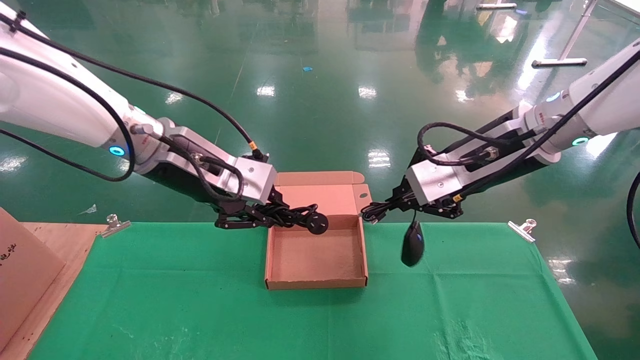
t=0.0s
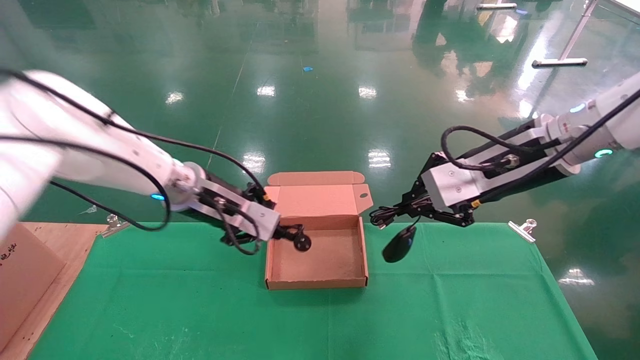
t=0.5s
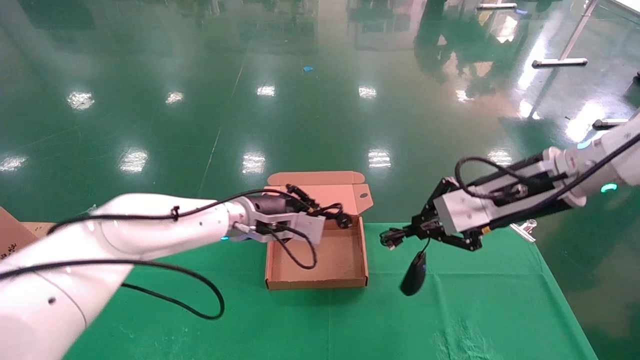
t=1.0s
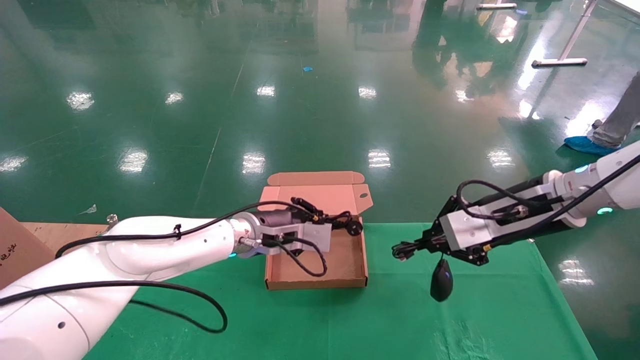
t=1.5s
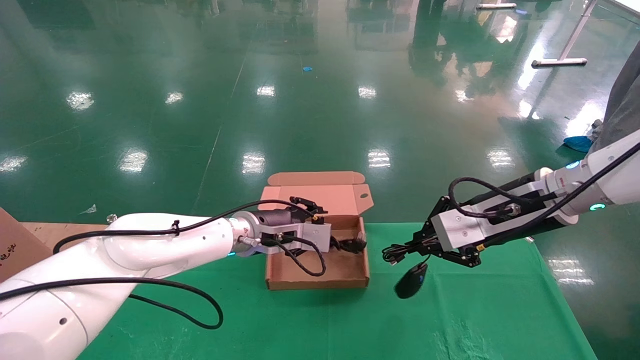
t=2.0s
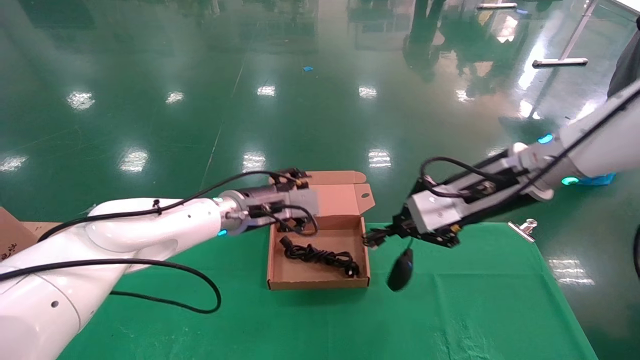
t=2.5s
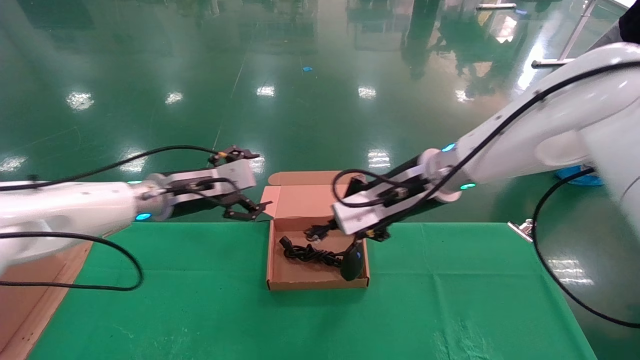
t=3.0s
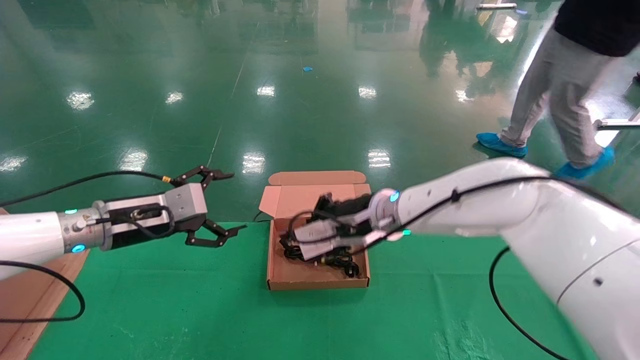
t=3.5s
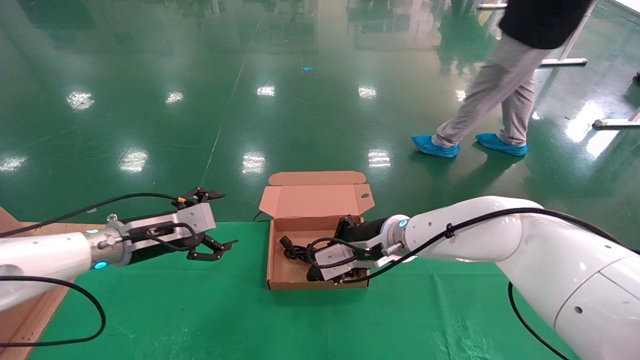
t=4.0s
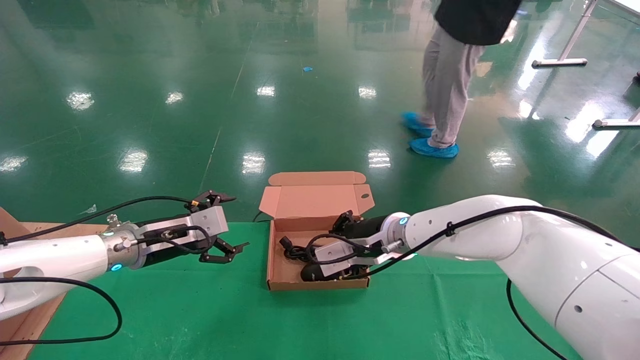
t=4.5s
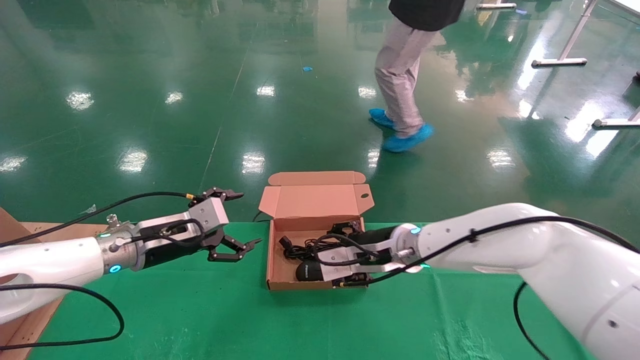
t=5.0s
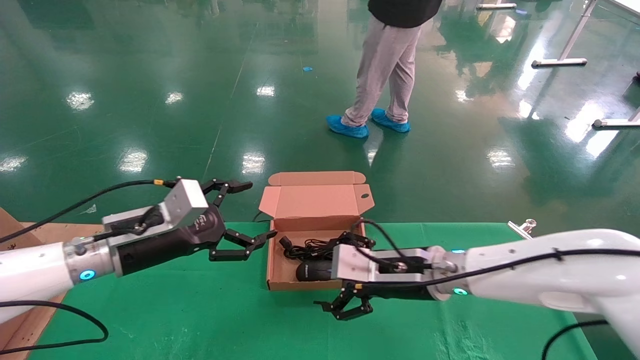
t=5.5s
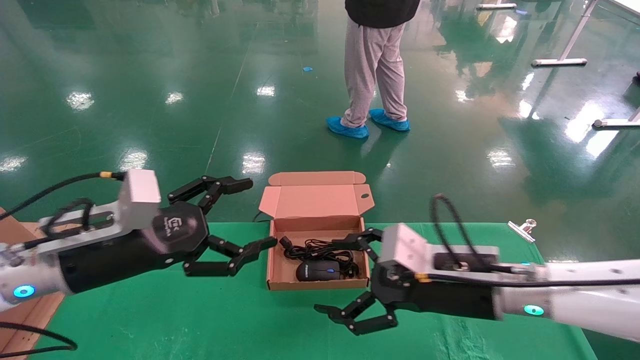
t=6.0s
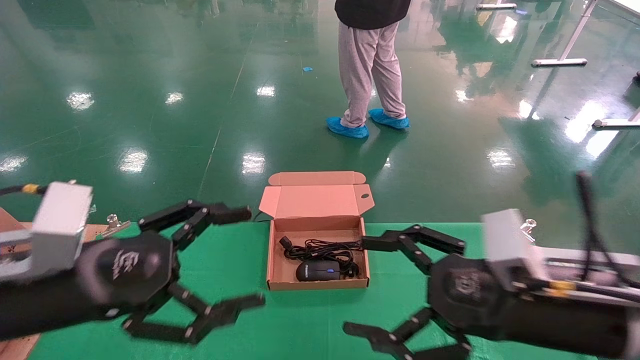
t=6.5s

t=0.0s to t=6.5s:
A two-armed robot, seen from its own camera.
Step, t=0.0s to t=4.0s: Place the mouse and power cord into the box.
t=0.0s to t=2.0s: The right gripper heads downward, covering some 5 cm, while the left gripper travels downward, forward and to the right by roughly 20 cm.
t=2.0s to t=4.5s: The left gripper heads to the left, covering approximately 20 cm, and opens; the right gripper moves to the left, downward and forward, some 20 cm.
t=4.5s to t=6.5s: The left gripper travels backward by some 25 cm; the right gripper is displaced backward and to the right by approximately 25 cm, and opens its fingers.
